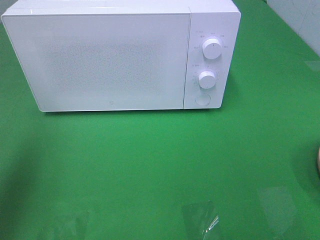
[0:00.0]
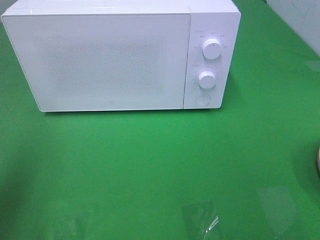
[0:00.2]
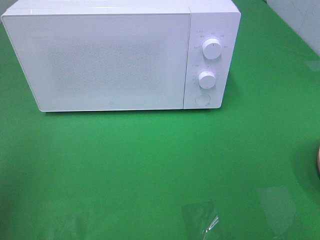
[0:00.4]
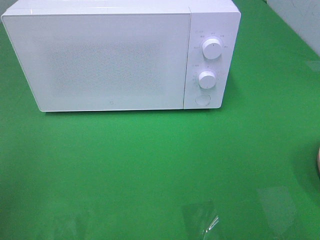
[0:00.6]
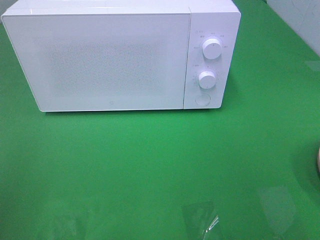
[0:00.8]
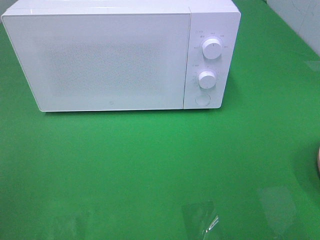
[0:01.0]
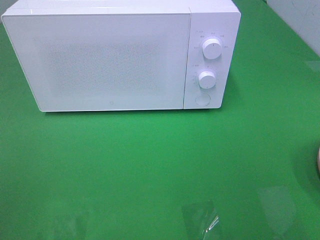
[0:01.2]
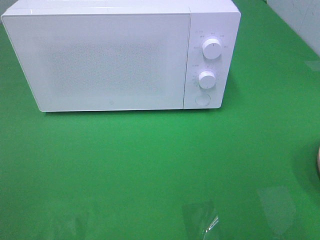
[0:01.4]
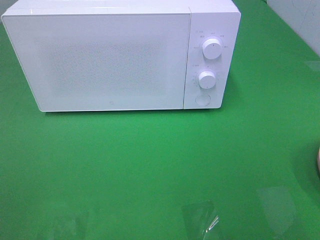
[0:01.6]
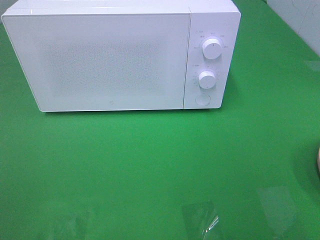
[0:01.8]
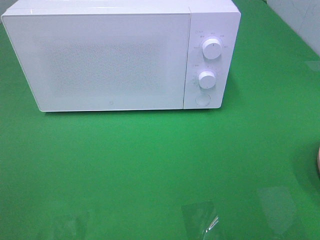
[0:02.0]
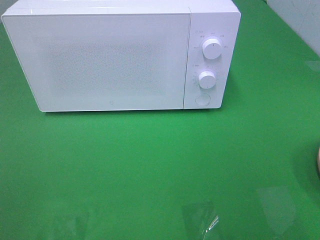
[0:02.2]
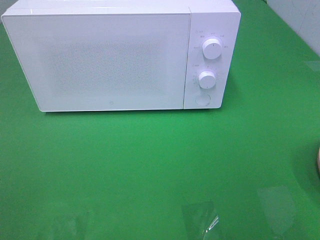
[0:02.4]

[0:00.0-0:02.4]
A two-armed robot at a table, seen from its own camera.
Task of the whole recording: Heat the burger.
0.0 to 1.2 s: The left gripper shifts some 15 cm backward.

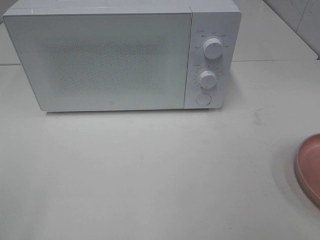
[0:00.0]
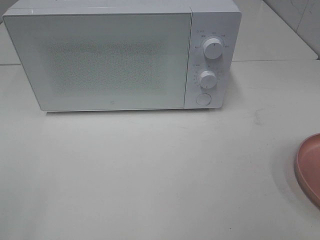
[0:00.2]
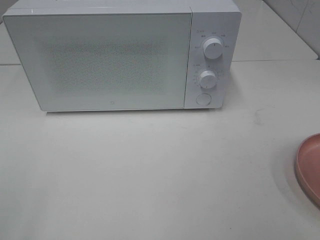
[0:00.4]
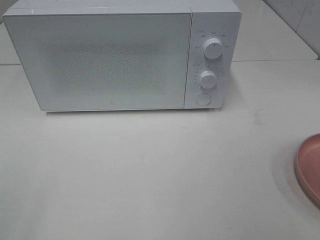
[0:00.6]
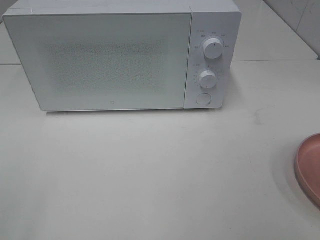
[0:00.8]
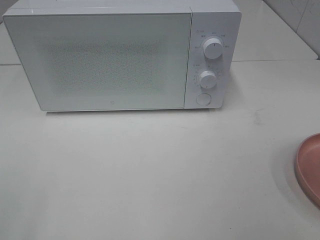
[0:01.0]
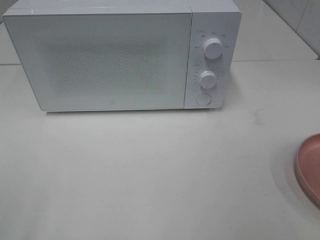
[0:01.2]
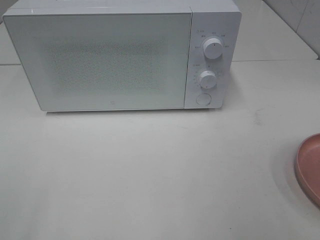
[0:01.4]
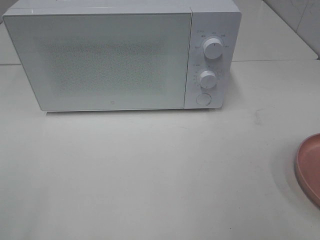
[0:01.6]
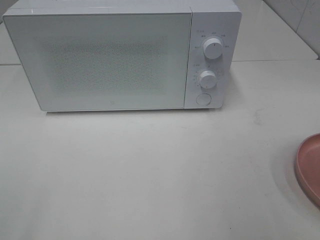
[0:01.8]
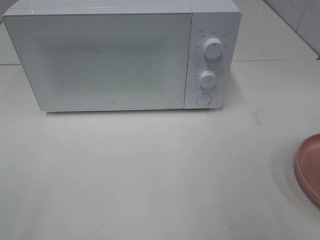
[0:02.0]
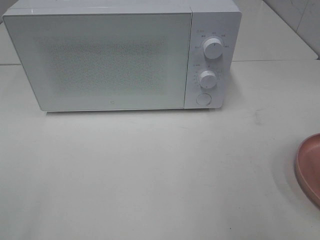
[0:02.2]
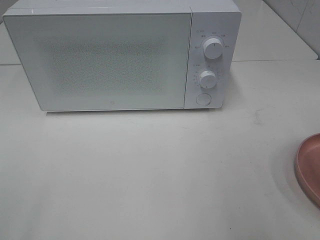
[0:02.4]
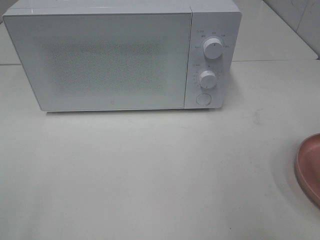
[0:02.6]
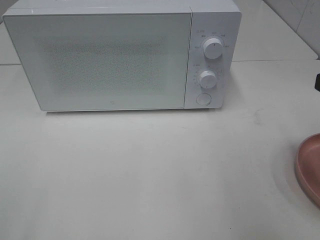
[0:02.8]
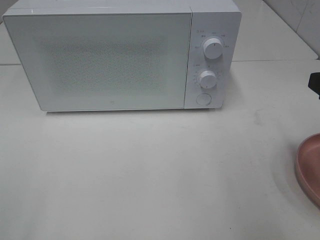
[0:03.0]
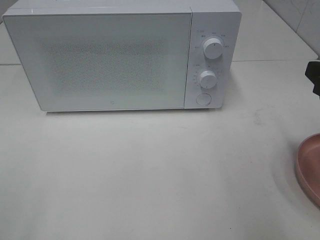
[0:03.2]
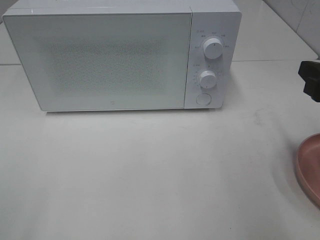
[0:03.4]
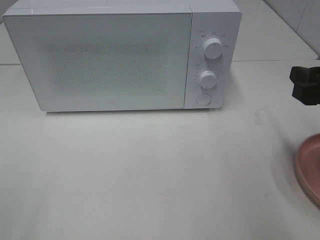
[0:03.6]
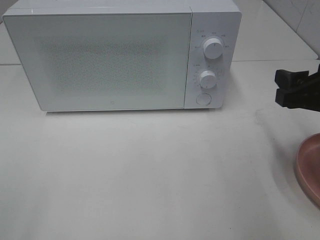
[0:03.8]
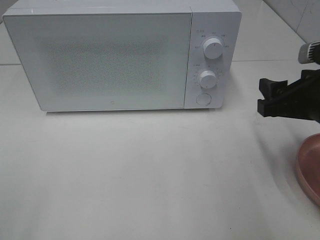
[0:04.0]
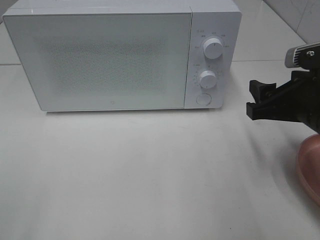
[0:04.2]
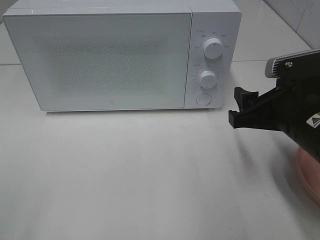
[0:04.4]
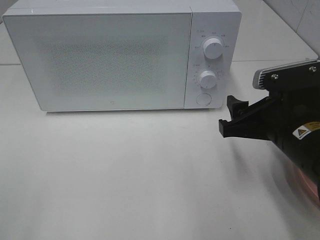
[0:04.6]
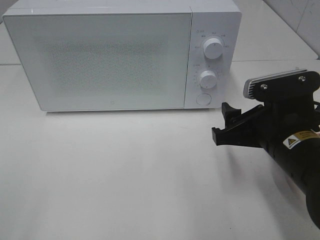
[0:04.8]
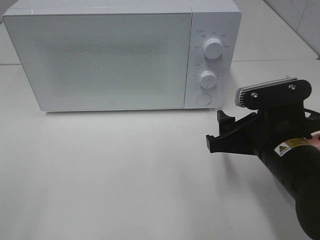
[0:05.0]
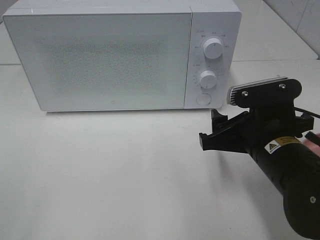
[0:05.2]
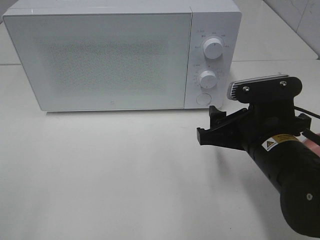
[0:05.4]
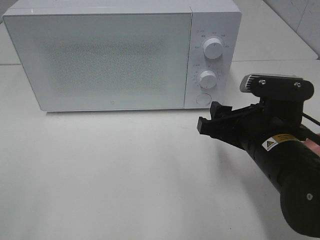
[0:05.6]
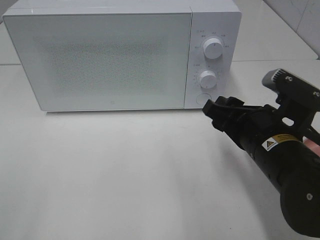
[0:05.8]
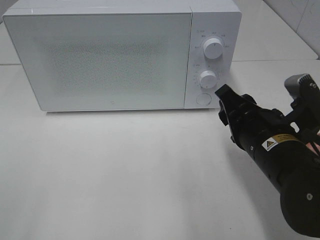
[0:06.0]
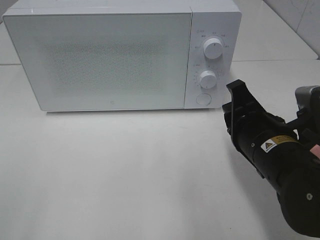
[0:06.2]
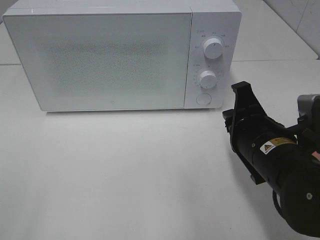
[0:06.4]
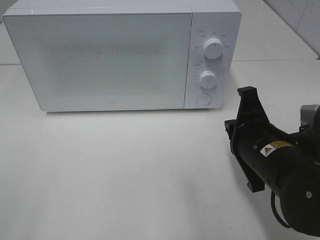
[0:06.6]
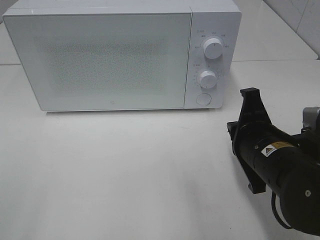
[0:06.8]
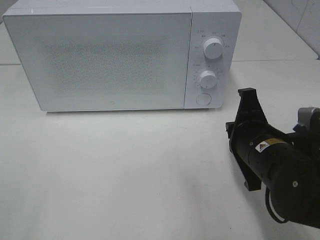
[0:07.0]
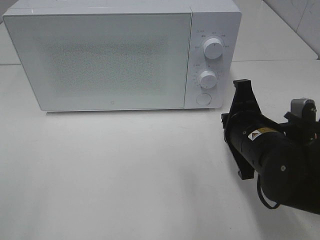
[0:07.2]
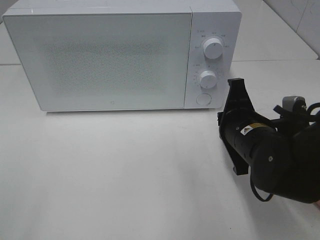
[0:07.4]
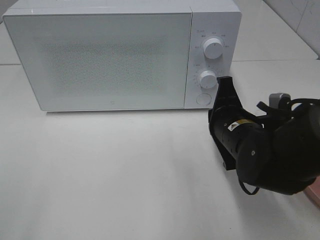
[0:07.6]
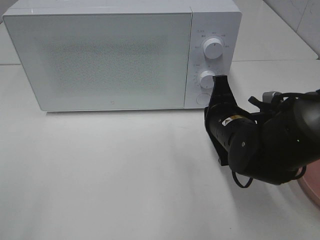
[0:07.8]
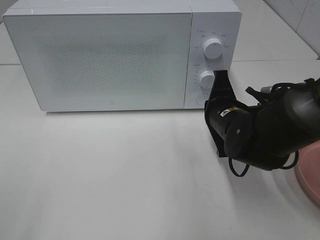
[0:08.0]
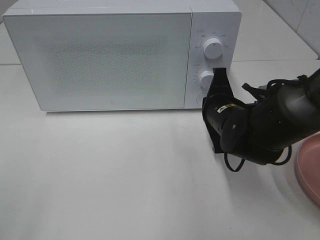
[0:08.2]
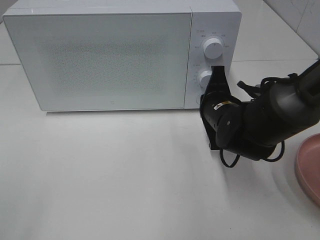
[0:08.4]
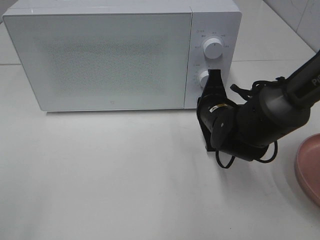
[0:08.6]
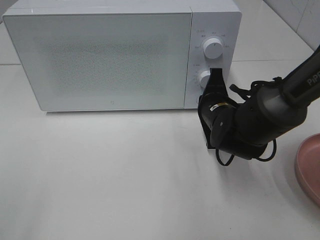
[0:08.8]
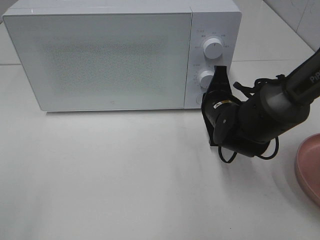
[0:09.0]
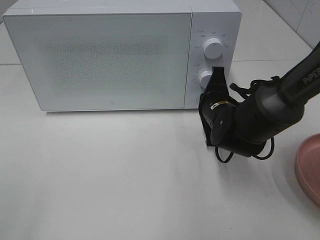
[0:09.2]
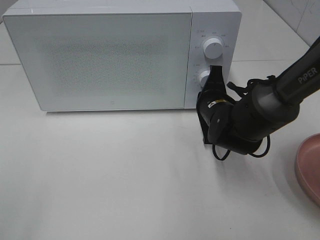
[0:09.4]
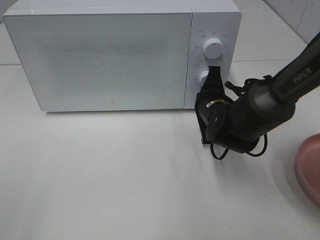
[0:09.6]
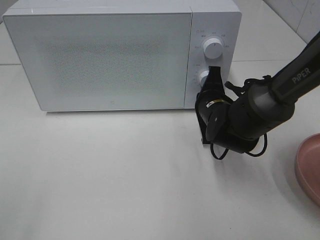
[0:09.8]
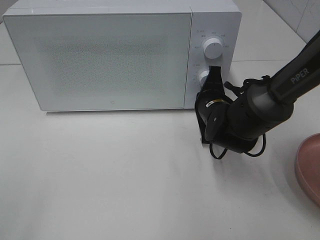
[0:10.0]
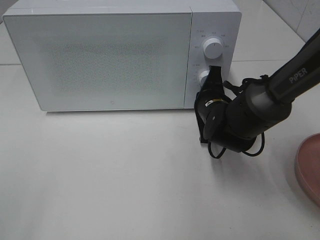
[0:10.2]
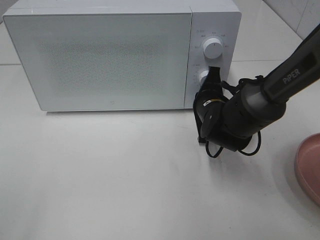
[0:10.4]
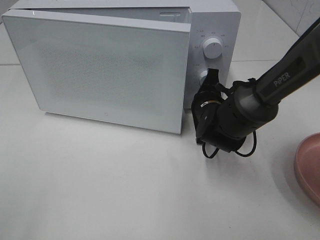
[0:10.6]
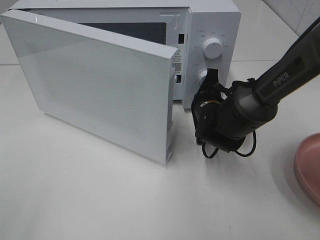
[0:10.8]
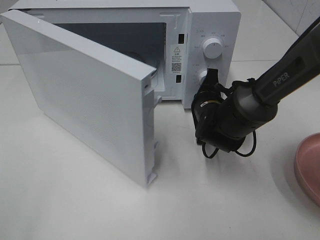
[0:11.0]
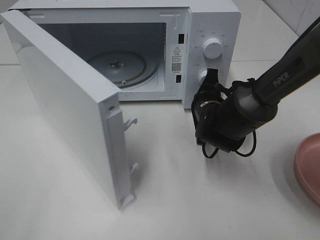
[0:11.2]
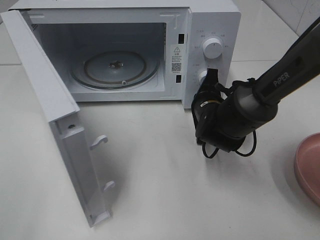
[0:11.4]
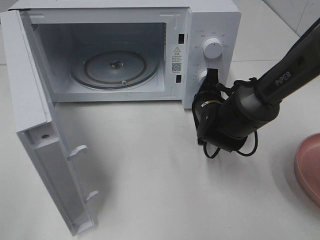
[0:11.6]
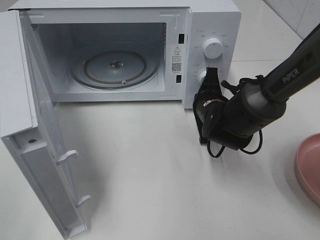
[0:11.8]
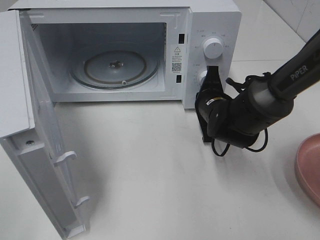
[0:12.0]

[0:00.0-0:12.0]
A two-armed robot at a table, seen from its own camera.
Task of the whole recording: Heat the burger.
3.0 to 4.4 s: The right gripper goes some 10 cm to the left and downward.
4.4 to 6.0 s: The right gripper shifts by about 5 cm.
6.0 to 7.6 s: The right gripper heads forward, covering approximately 5 cm, and closes up.
7.6 to 9.0 s: The right gripper moves forward, some 5 cm.
9.0 to 10.4 s: There are only small adjustments of the grippers.

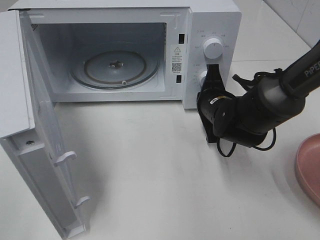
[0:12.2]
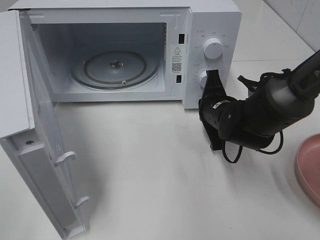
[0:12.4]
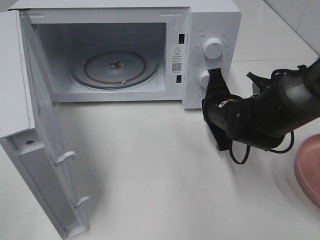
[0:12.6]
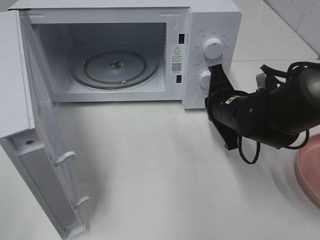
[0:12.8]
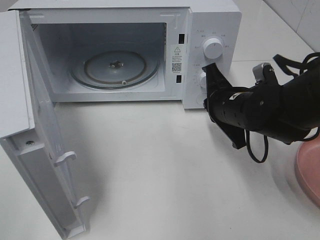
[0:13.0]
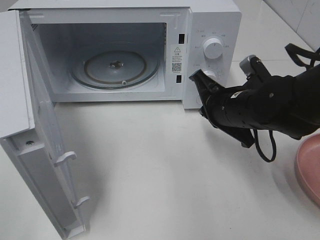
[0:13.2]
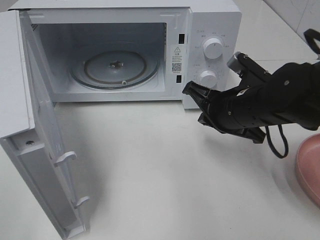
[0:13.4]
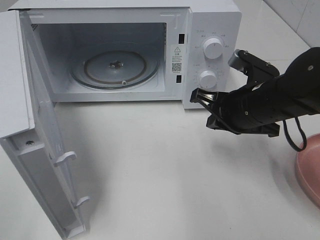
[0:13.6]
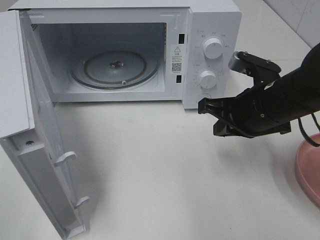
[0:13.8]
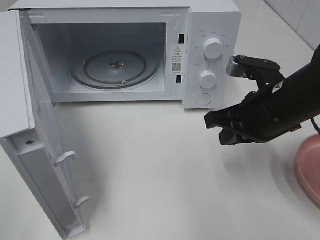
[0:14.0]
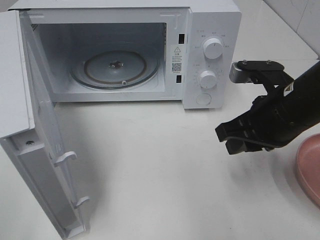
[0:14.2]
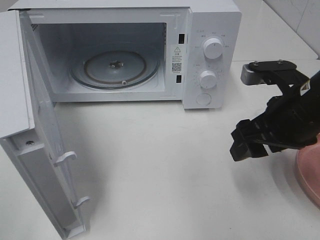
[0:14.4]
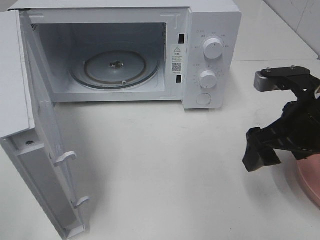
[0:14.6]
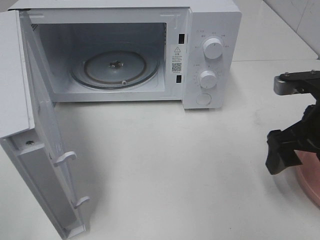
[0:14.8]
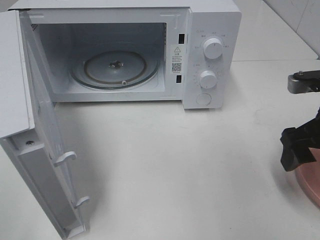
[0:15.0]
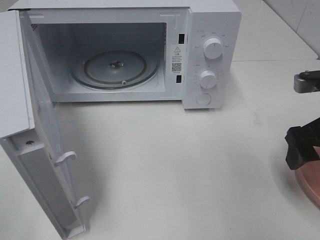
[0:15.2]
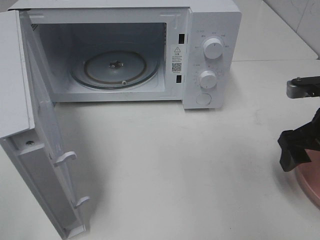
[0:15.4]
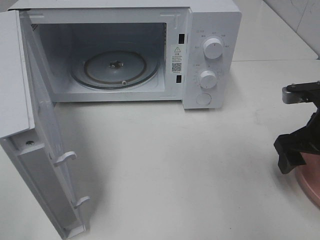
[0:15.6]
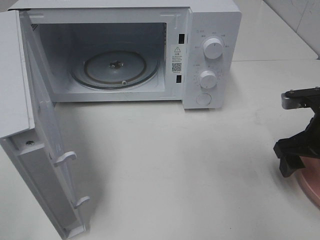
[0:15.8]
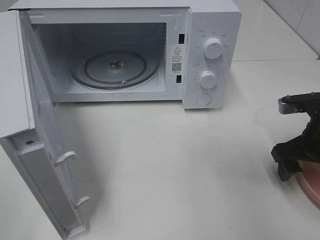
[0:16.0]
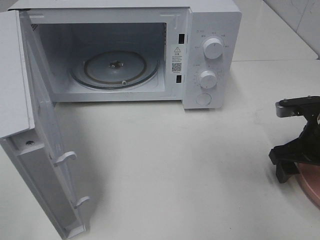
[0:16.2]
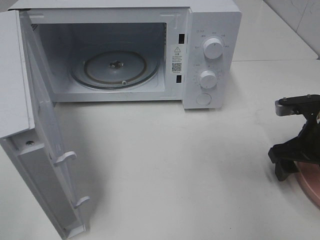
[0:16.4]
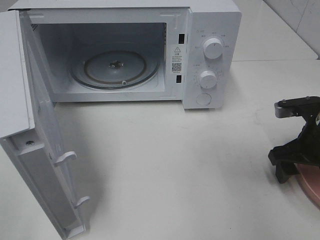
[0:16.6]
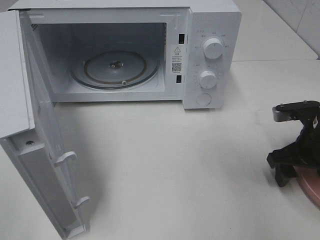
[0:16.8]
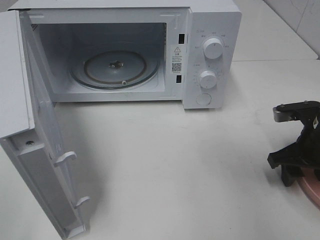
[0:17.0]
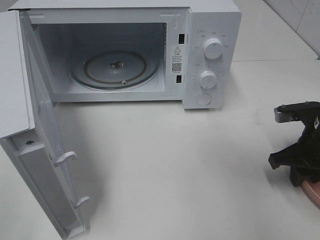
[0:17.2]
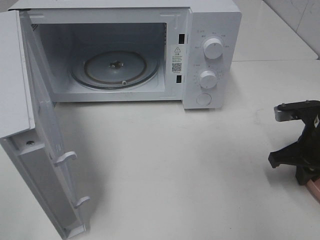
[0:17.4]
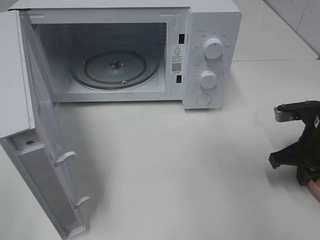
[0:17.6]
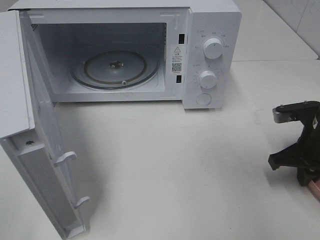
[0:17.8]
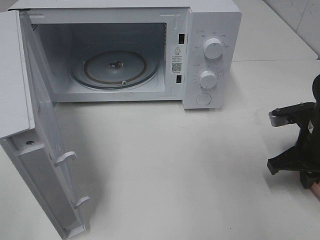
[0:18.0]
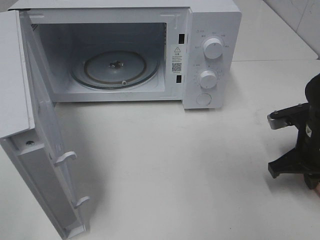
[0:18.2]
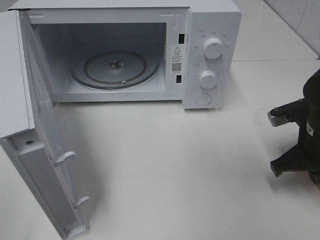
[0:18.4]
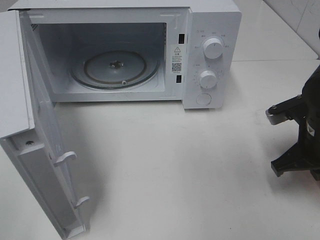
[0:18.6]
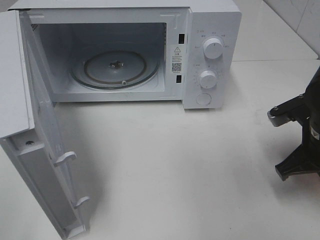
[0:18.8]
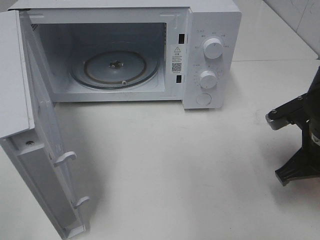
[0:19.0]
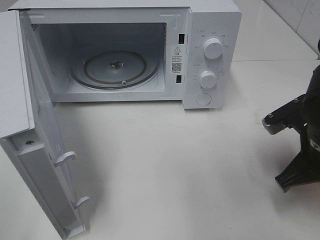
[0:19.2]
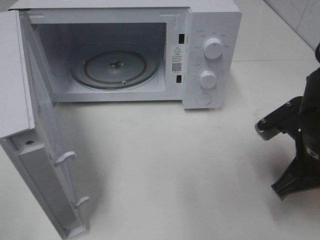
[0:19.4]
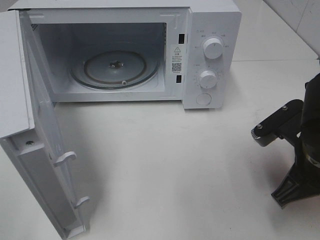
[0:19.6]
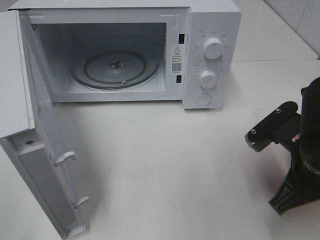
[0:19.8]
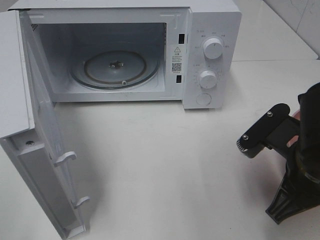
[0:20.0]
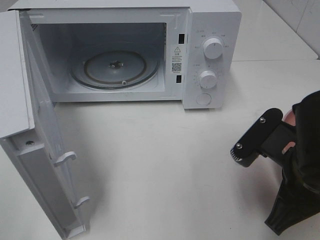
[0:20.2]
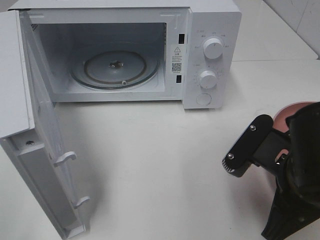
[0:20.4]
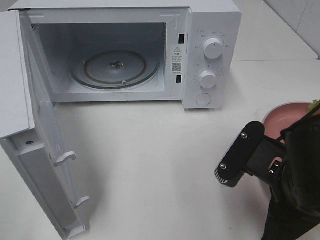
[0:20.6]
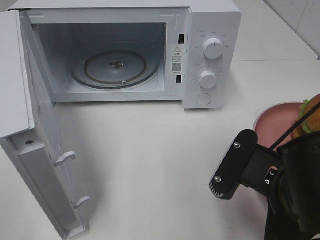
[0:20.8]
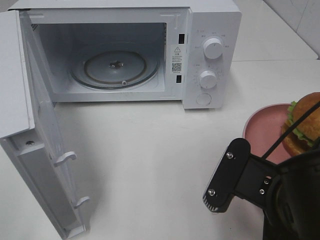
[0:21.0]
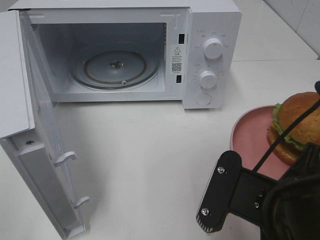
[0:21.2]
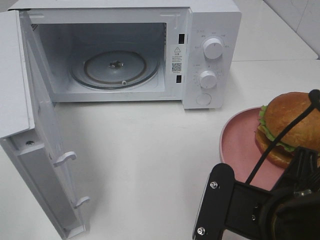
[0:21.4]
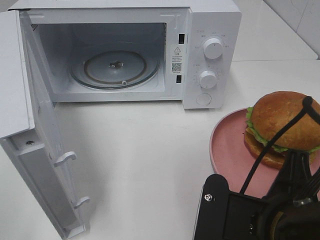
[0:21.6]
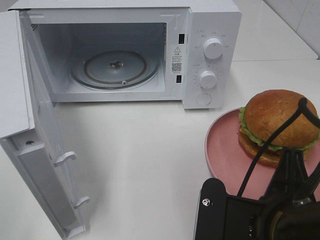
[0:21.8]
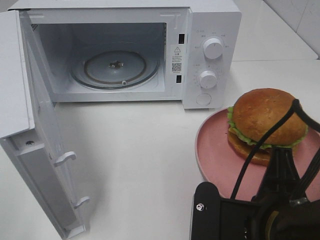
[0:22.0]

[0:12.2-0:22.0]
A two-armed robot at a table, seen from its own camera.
Task of the whole recording: Heat the burger.
Step, 12.6 to 17.6 s: Right hand: grab the plate with the hamburger.
12.2 to 13.6 s: The right gripper is displaced upward and backward by about 10 cm.
13.6 to 15.0 s: The right gripper heads to the right, covering roughly 10 cm, and opens.
15.0 to 16.4 s: The right gripper is displaced downward by about 5 cm.
16.4 to 17.8 s: The right gripper closes up.
17.8 to 19.2 s: The right gripper shifts by some 10 cm.
19.2 to 20.6 s: The right gripper travels backward and to the left by some 10 cm.
20.6 to 22.0 s: The right gripper moves some 5 cm.
